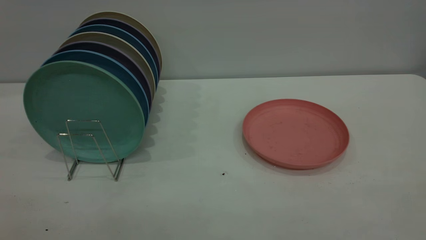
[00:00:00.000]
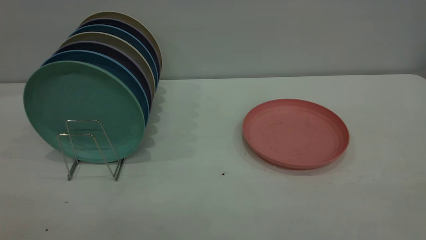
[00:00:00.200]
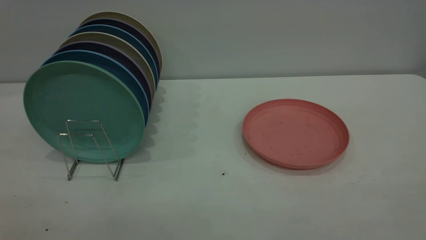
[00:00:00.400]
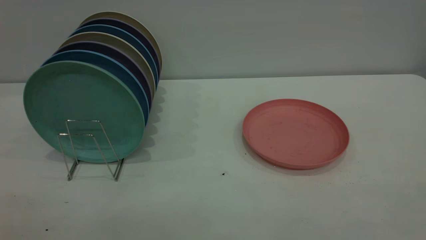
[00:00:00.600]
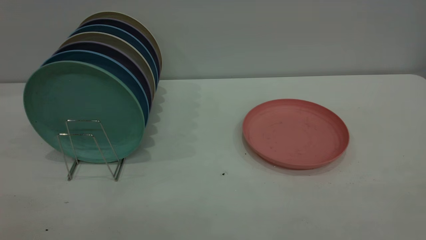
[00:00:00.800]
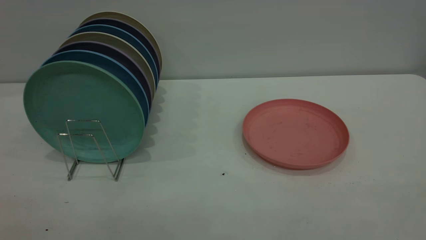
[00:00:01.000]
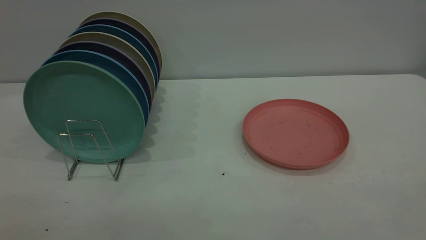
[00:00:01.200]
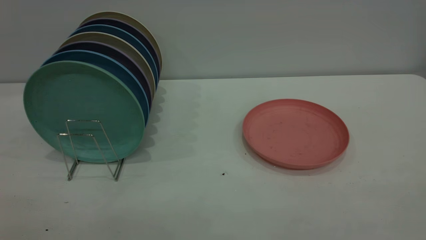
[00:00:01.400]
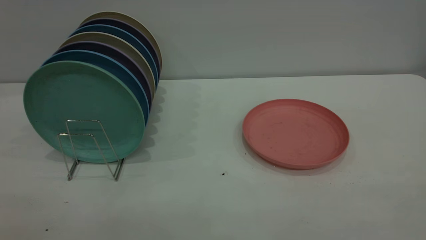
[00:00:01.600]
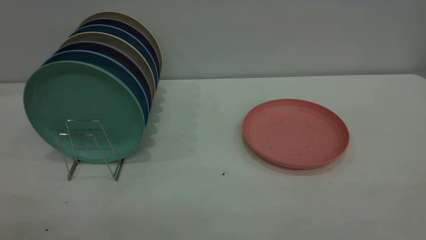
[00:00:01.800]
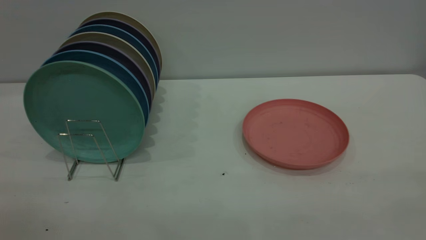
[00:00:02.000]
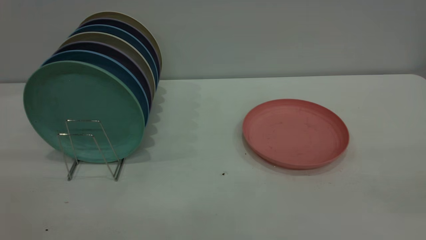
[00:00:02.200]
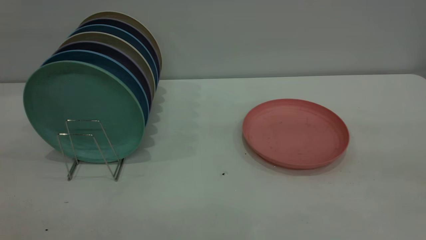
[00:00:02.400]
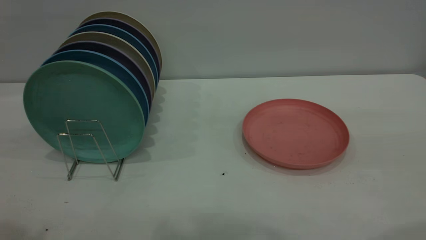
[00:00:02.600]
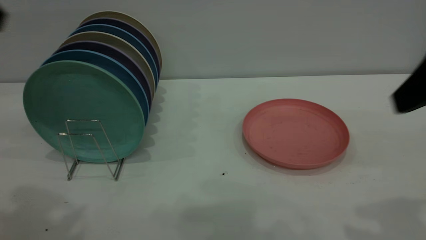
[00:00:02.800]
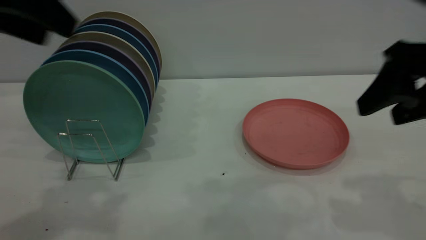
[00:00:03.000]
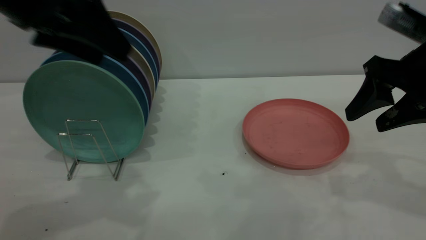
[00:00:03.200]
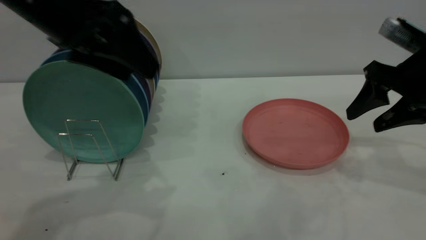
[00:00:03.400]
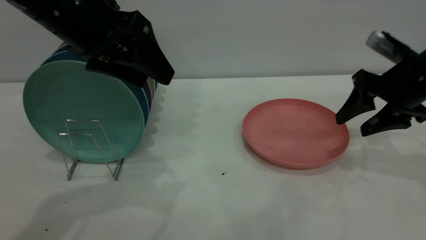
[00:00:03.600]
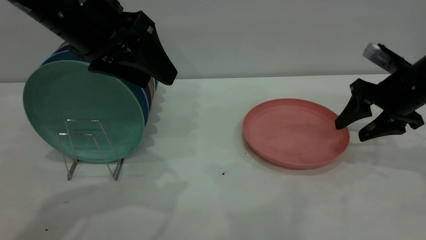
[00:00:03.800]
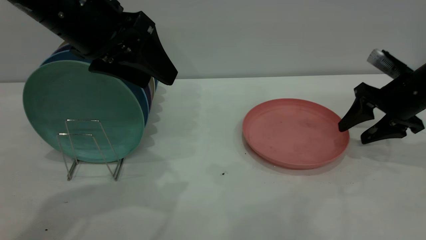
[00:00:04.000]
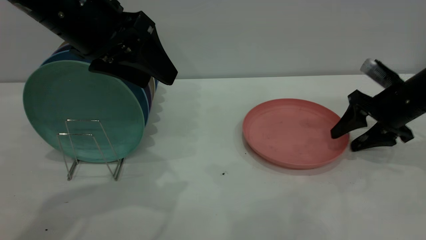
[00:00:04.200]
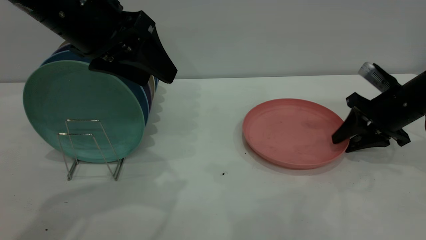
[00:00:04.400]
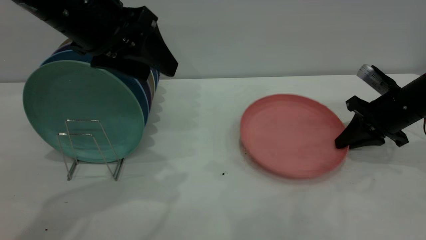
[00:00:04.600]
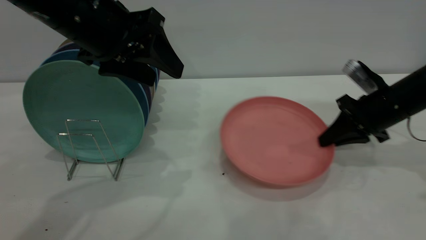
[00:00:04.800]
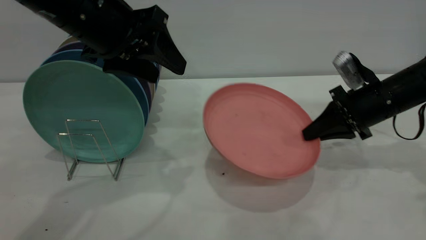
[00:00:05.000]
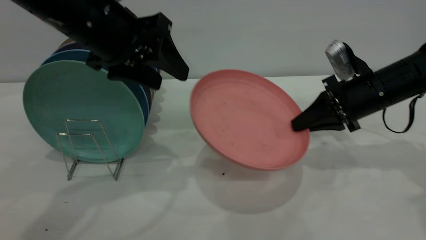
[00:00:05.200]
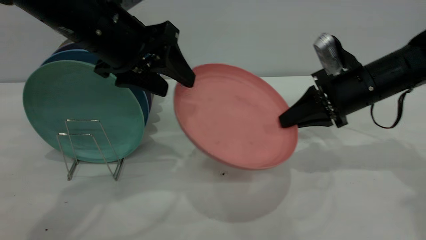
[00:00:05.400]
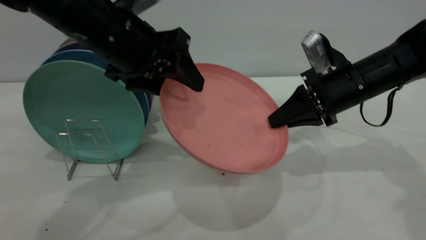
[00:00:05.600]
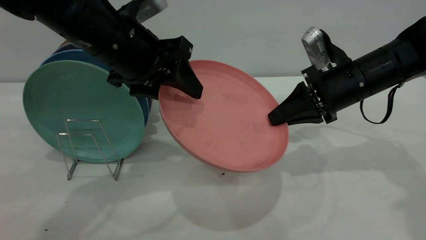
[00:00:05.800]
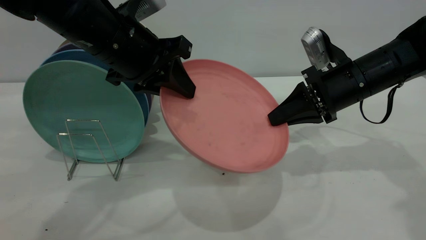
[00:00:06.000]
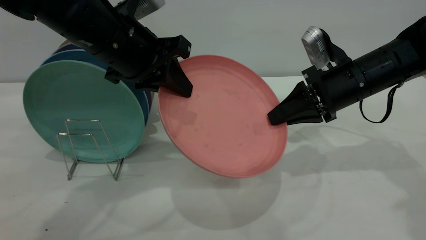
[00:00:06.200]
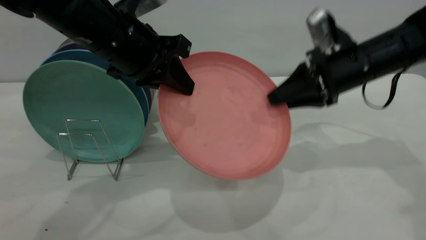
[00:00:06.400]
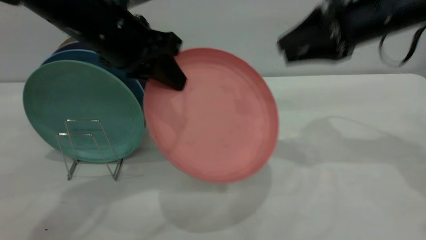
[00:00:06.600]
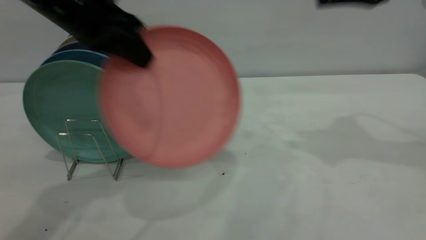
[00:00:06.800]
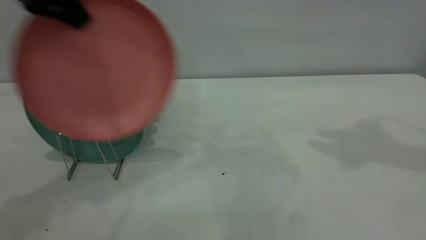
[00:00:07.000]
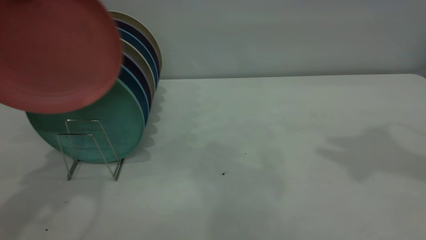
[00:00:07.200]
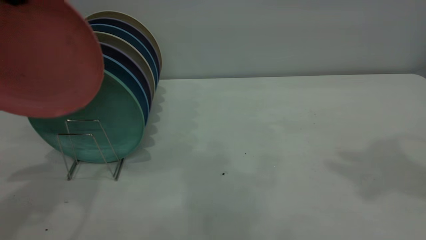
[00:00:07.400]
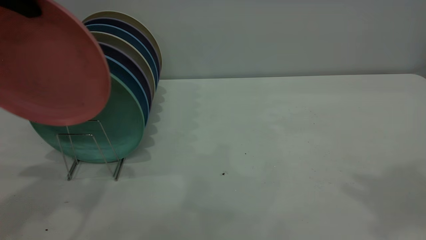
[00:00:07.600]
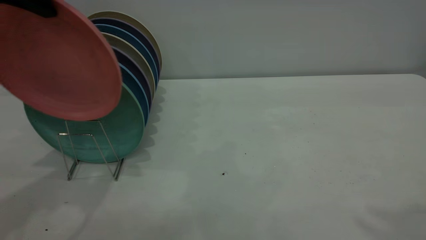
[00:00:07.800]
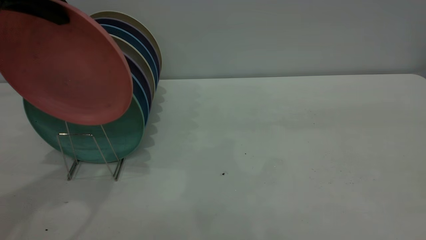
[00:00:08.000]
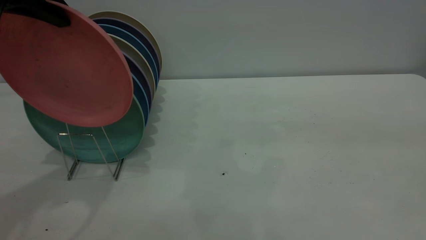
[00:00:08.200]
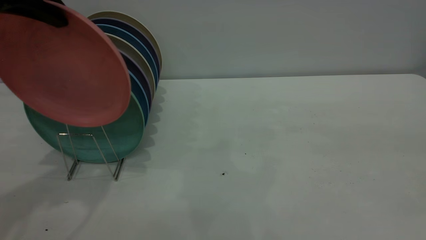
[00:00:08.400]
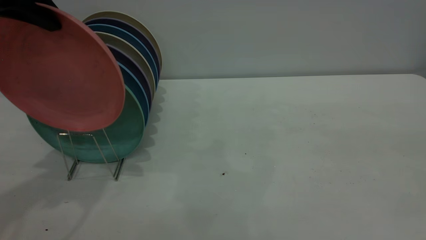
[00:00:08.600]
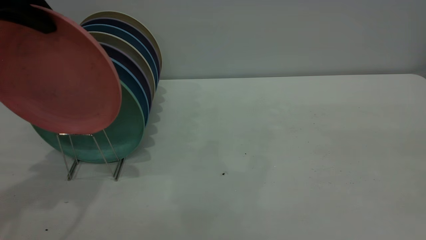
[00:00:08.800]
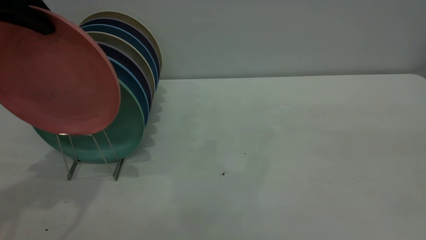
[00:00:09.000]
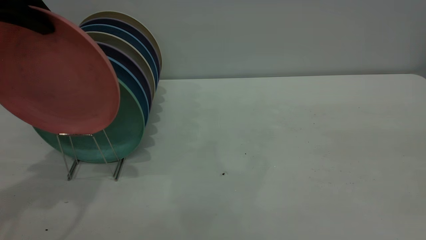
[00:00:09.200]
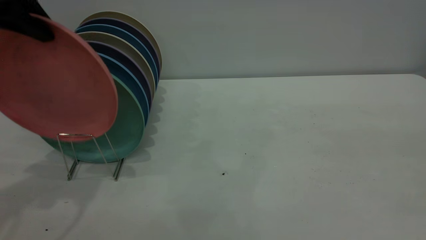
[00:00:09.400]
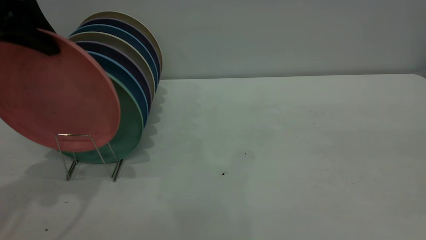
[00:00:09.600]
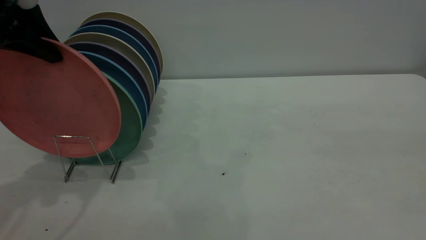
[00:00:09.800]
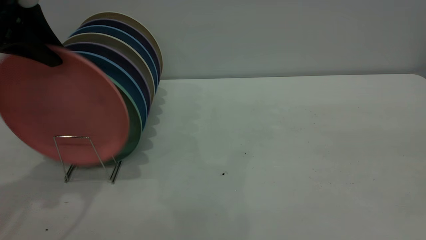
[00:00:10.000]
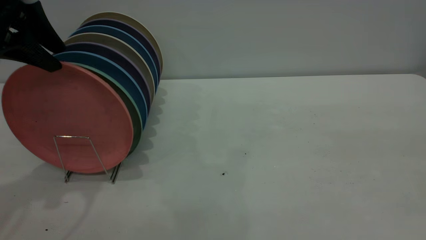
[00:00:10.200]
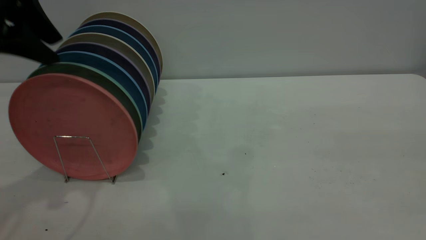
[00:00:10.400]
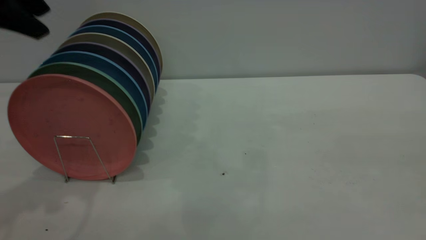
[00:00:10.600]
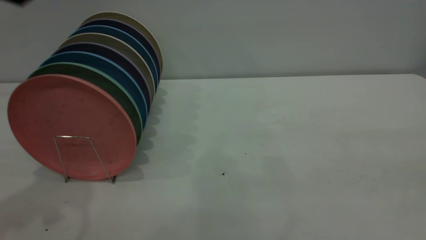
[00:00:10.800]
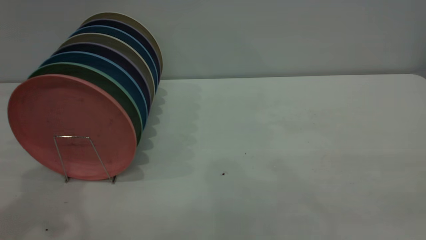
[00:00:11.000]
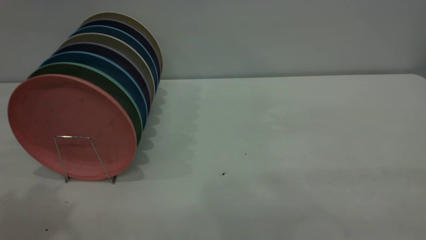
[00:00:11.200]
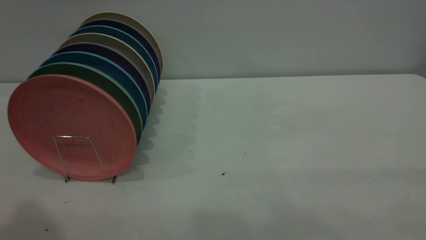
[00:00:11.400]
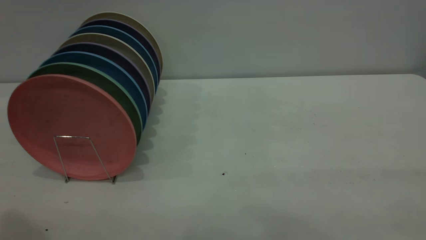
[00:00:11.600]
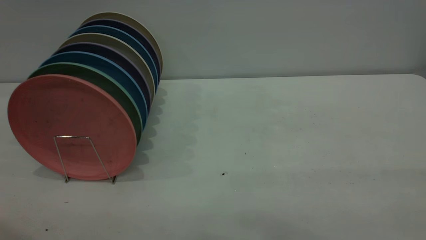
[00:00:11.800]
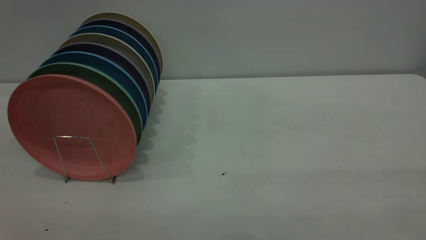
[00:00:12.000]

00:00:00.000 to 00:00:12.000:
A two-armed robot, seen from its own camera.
Task of the whole recording: the right gripper grasp the pink plate, the right gripper pass the pink plate to the left gripper, and the left gripper place the pink plate on the plate rack.
Step, 00:00:00.000 to 00:00:04.800: Pick up the plate with the right gripper.
Step, 00:00:05.000 to 00:00:07.000: Pass the plate from the right gripper to the left gripper.
Step, 00:00:07.200 to 00:00:10.600: Place the plate on the shelf.
00:00:00.000 to 00:00:01.600: Both grippers stay put.
00:00:01.600 to 00:00:03.000: Both grippers move forward, about 30 cm.
00:00:03.000 to 00:00:04.400: The right gripper shifts roughly 20 cm downward and forward, and closes up. The left gripper shifts about 10 cm to the right and downward.
00:00:04.400 to 00:00:06.000: The right gripper heads to the left and upward, covering roughly 10 cm, and closes up, while the left gripper ends up some 5 cm from where it was, and closes up.
00:00:06.000 to 00:00:07.600: The right gripper goes about 40 cm upward and backward, and opens. The left gripper is displaced upward and to the left by some 20 cm.
00:00:09.000 to 00:00:10.400: The left gripper opens its fingers.
00:00:10.400 to 00:00:12.000: The left gripper goes roughly 25 cm backward and upward.
